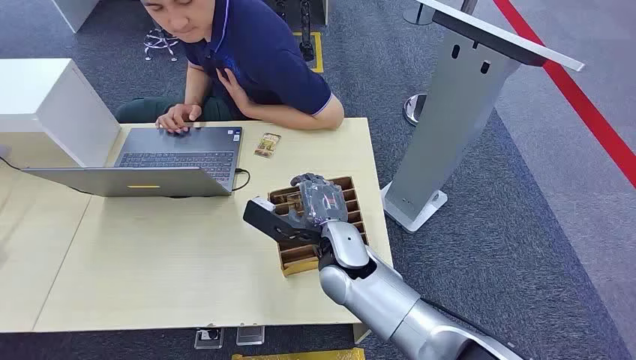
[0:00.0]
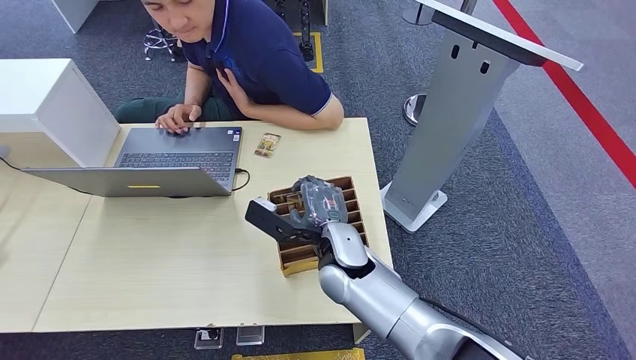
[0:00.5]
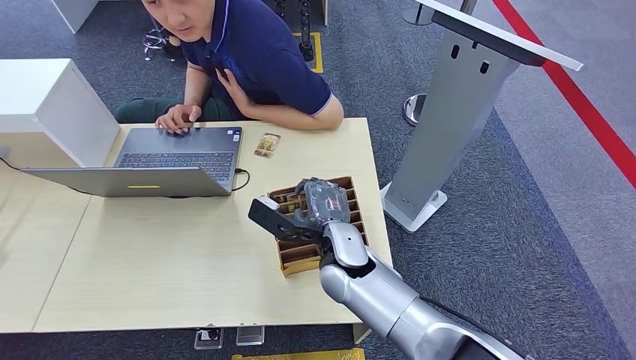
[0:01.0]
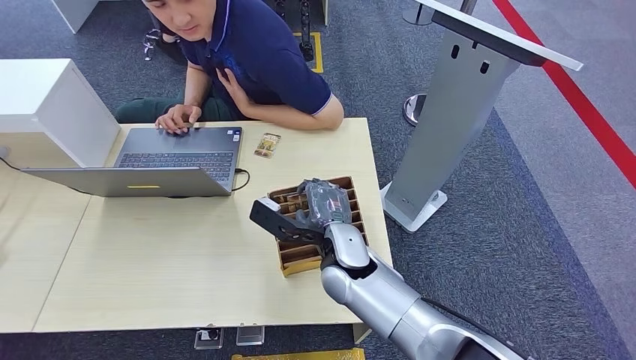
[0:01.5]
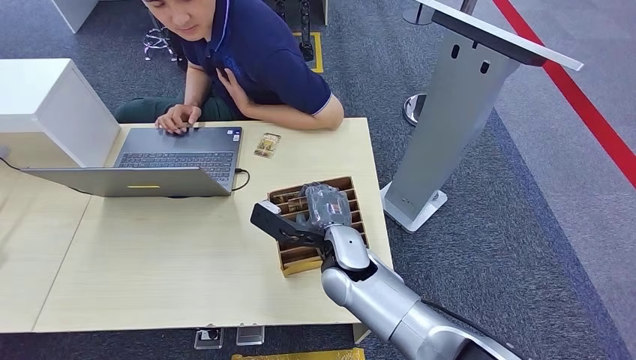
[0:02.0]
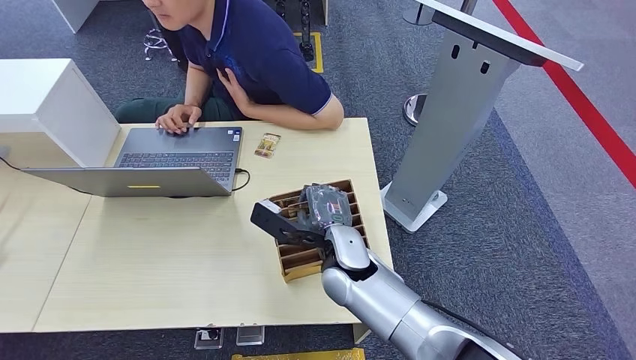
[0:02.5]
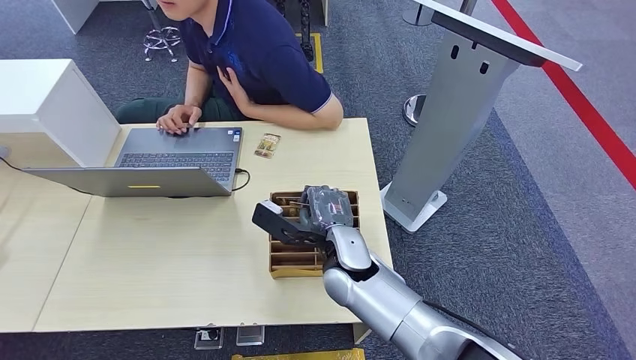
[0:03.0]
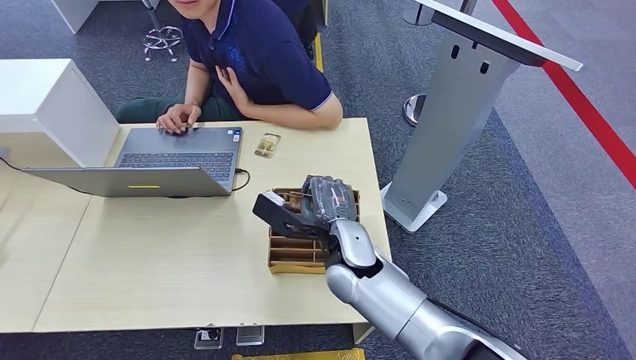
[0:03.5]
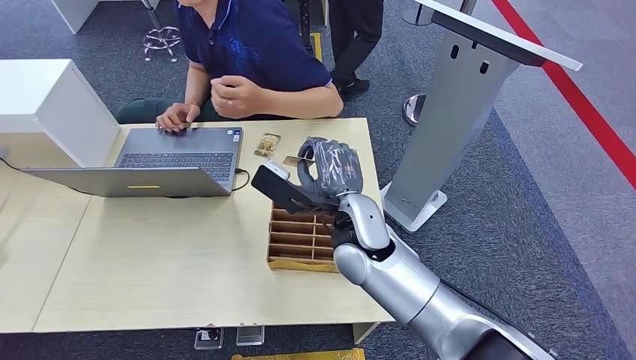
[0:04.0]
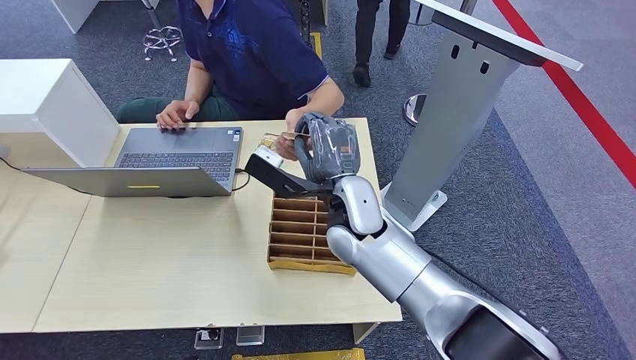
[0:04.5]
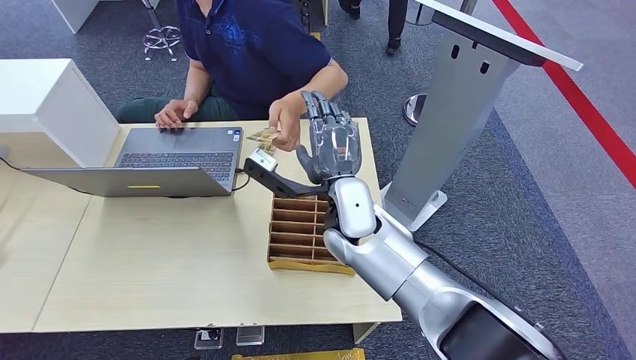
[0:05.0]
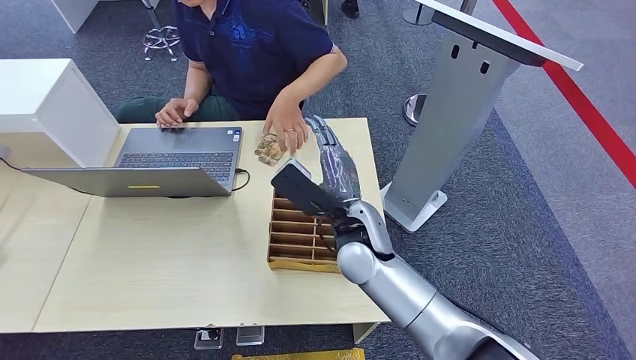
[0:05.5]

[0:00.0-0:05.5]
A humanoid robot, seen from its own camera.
Step, 0:00.0 to 0:04.0: Pick up the key card from the card box.
Step, 0:04.5 to 0:05.5: Hand the key card to the target.
0:02.0 to 0:03.5: Both hands stay about where they are.

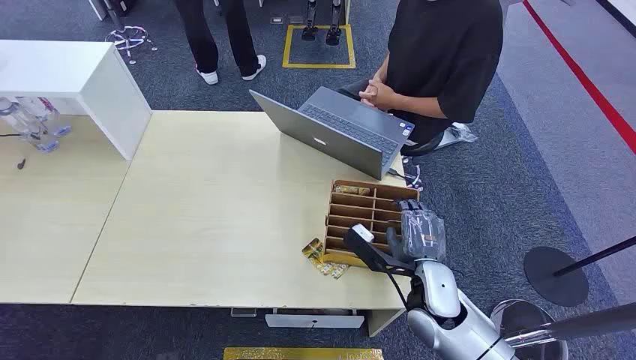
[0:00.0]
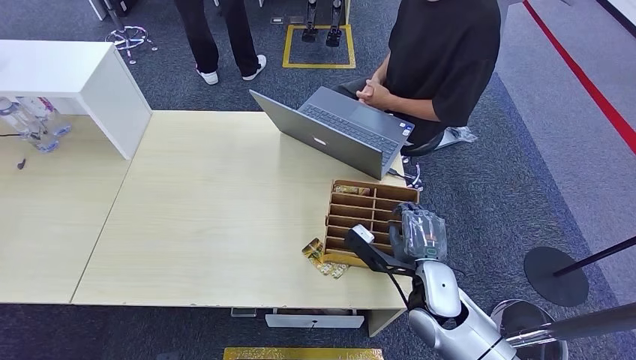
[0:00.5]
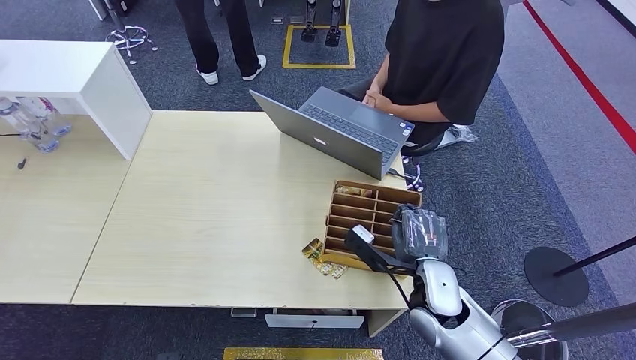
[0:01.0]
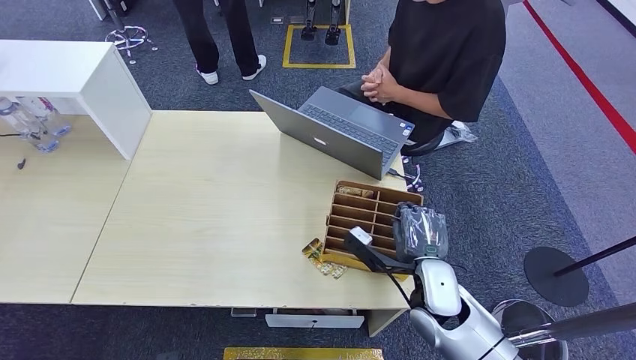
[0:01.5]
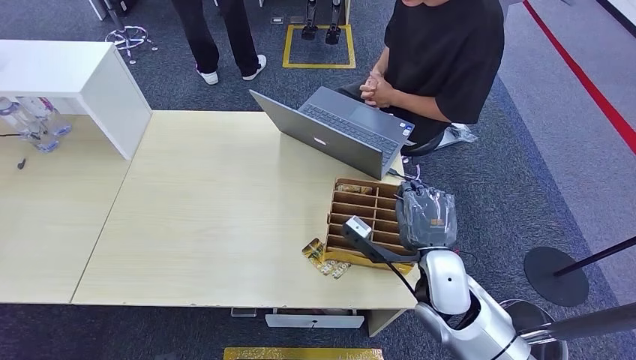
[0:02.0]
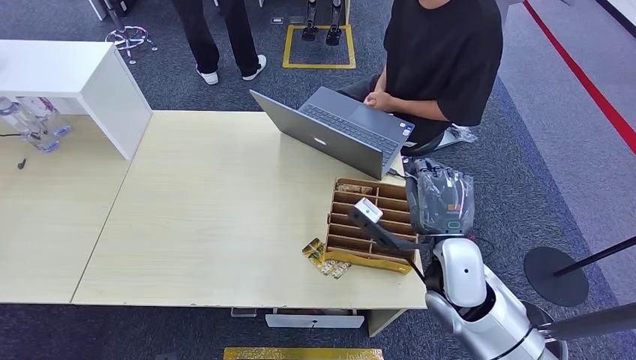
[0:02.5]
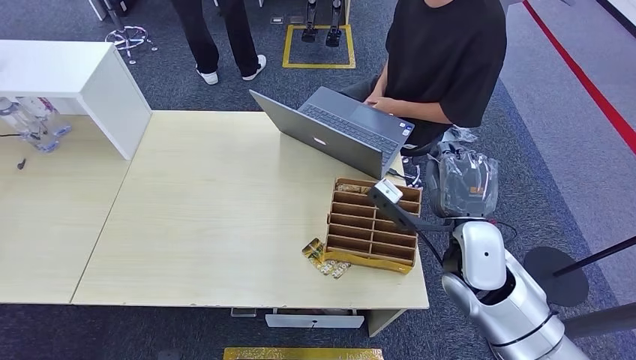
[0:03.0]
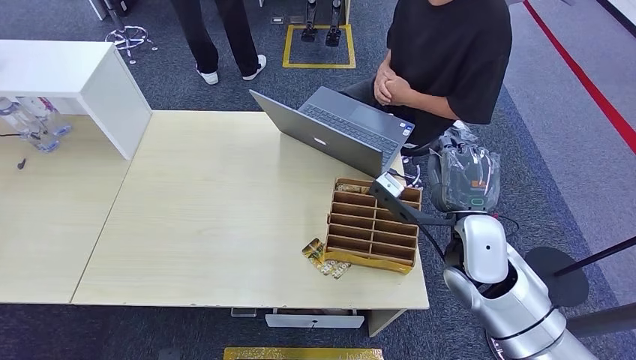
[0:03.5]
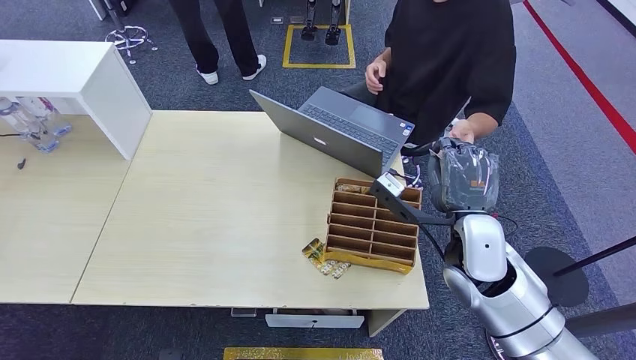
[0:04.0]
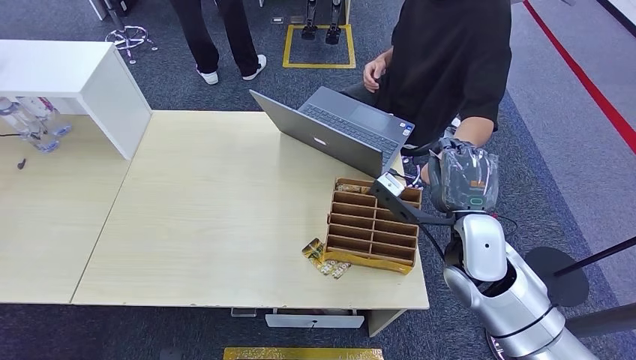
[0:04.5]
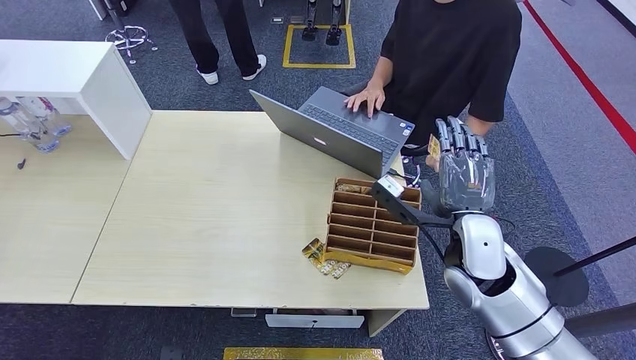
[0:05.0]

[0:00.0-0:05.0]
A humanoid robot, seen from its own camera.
Step, 0:00.0 to 0:02.5: Pick up the key card from the card box.
Step, 0:03.0 to 0:05.0: Hand the key card to the target.
0:02.5 to 0:05.0: The hands stay close to where they were, moving slightly.

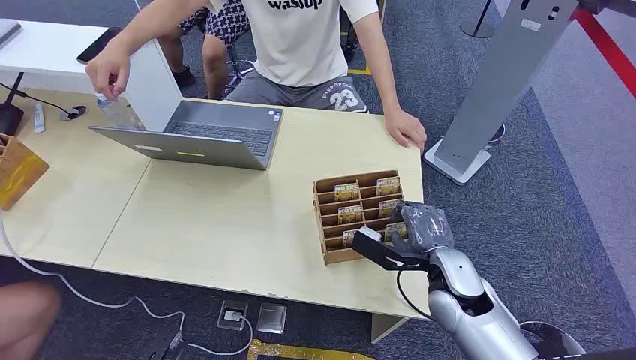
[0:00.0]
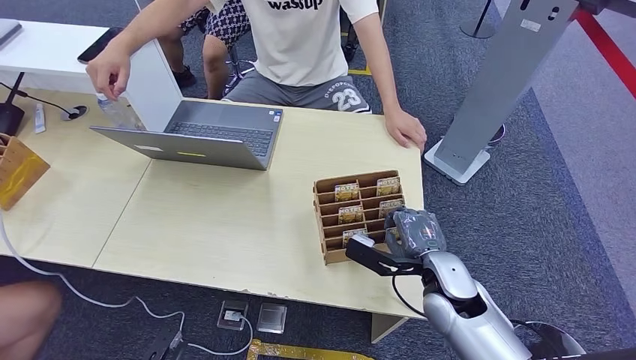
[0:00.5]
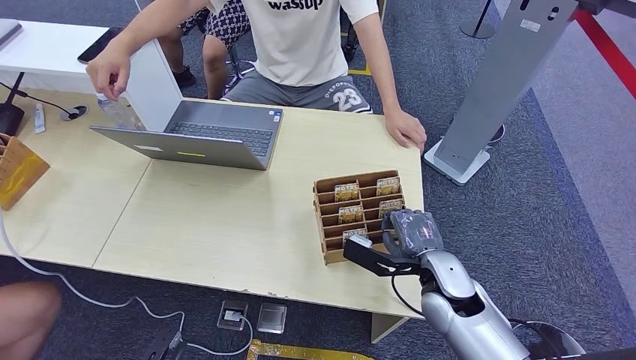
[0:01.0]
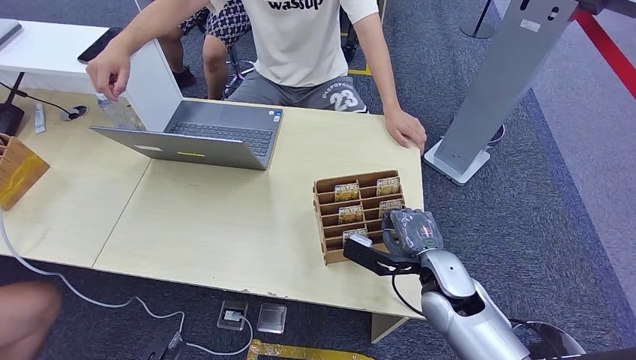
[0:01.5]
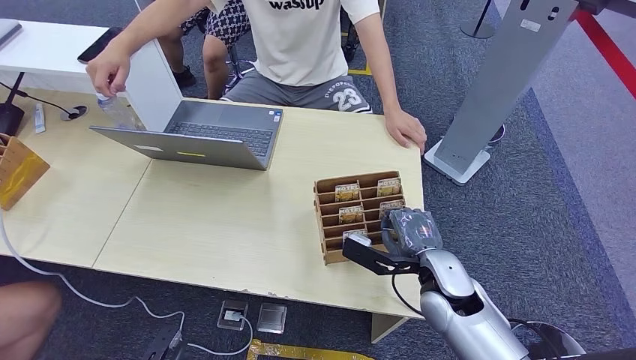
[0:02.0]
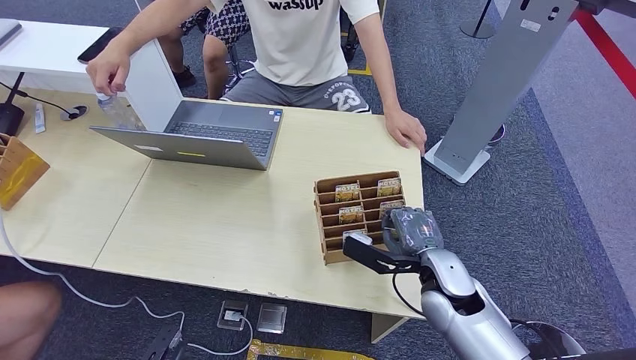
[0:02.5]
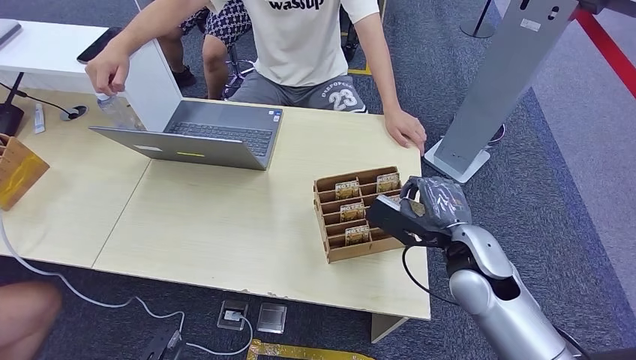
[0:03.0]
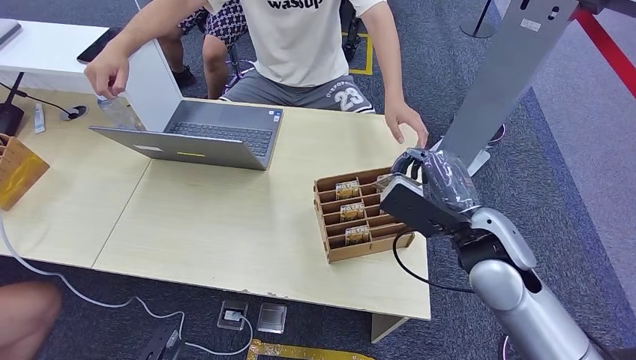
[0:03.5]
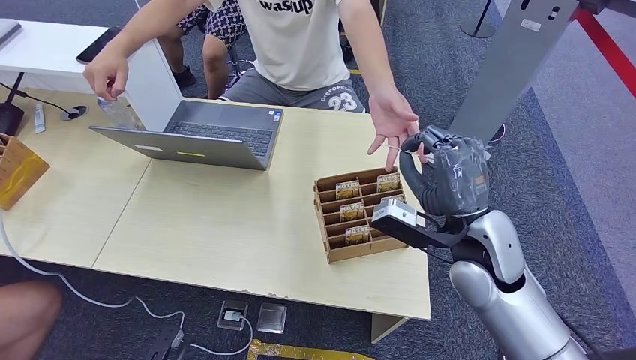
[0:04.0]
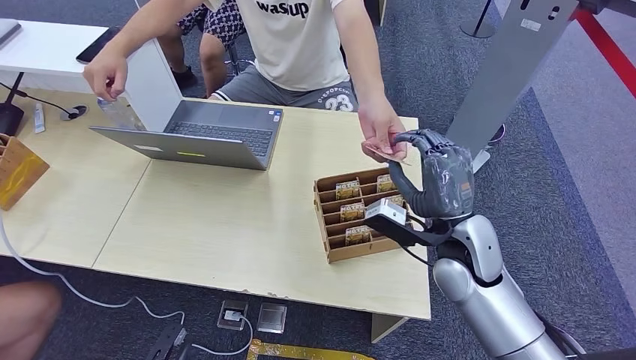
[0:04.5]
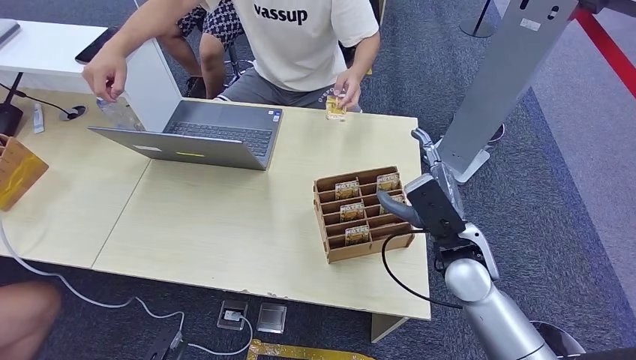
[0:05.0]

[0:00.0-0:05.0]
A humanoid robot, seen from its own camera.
Step, 0:00.0 to 0:03.0: Pick up the key card from the card box.
Step, 0:03.5 to 0:05.0: Hand the key card to the target.
0:02.5 to 0:05.0: The right hand is displaced upward by roughly 5 cm.
